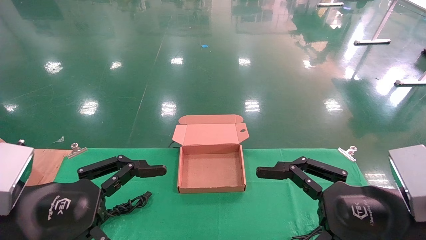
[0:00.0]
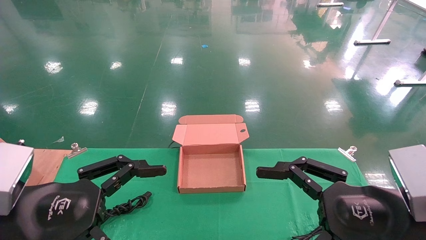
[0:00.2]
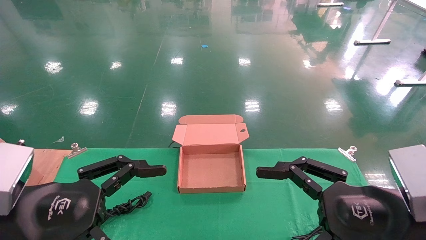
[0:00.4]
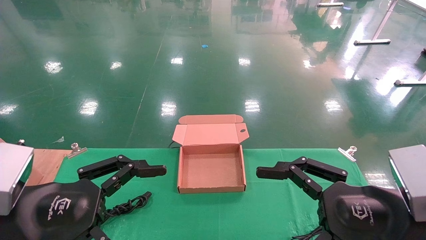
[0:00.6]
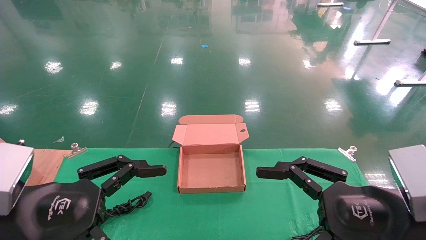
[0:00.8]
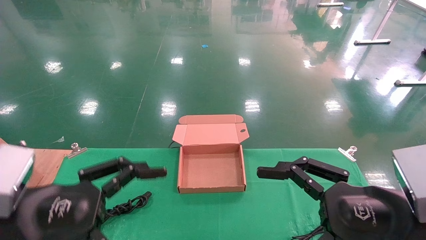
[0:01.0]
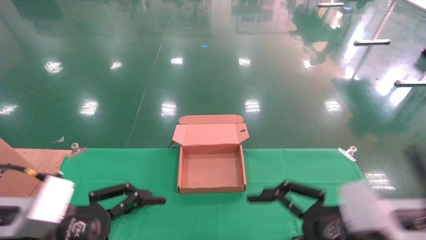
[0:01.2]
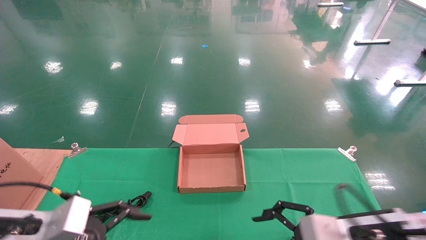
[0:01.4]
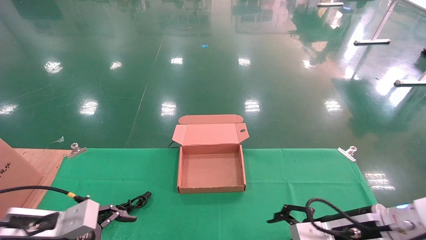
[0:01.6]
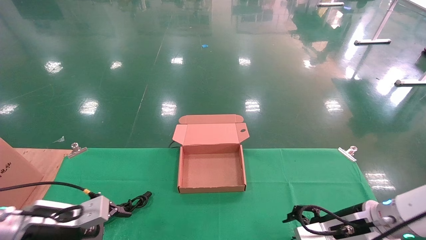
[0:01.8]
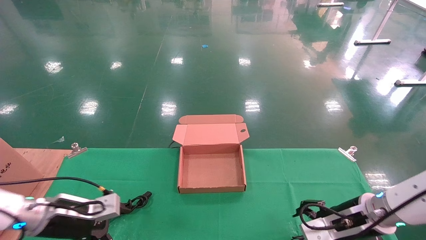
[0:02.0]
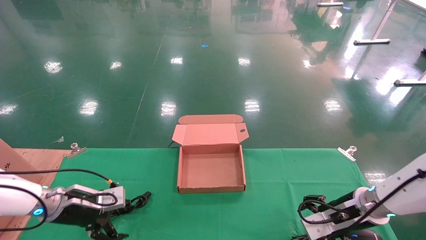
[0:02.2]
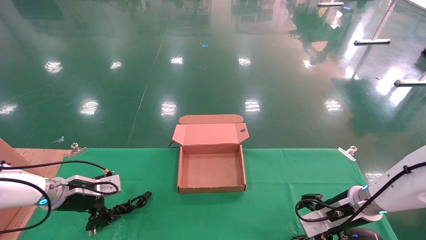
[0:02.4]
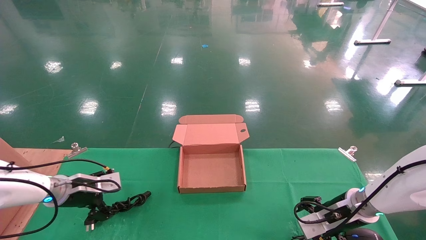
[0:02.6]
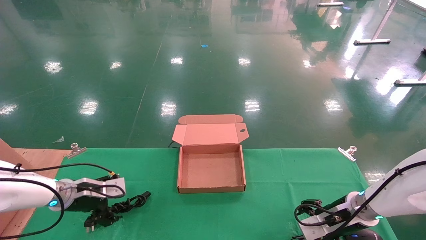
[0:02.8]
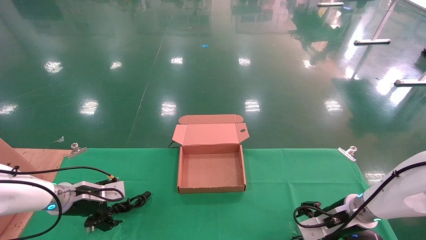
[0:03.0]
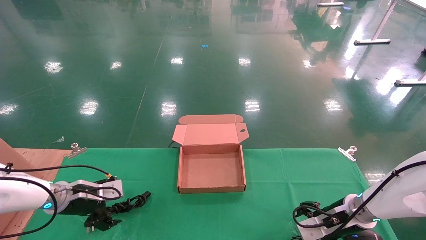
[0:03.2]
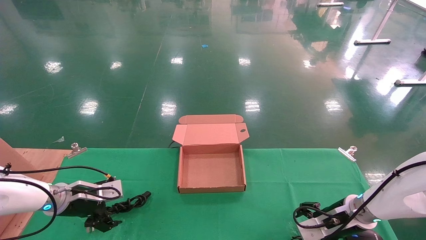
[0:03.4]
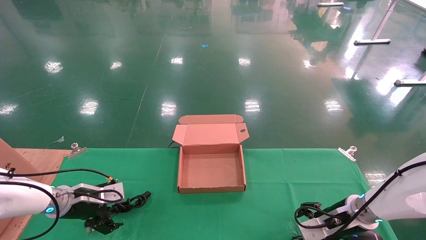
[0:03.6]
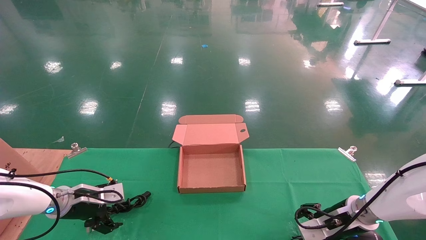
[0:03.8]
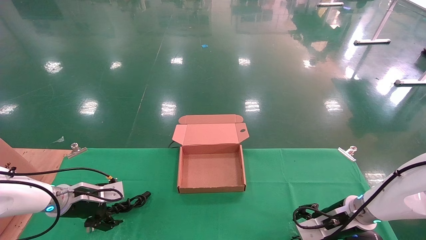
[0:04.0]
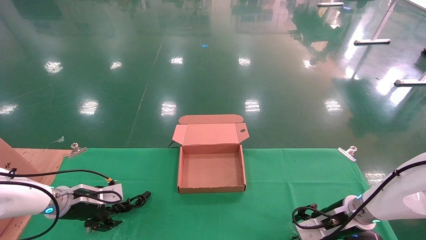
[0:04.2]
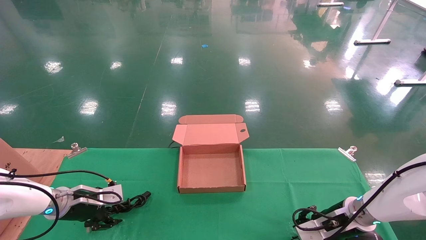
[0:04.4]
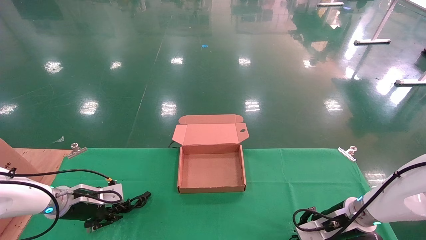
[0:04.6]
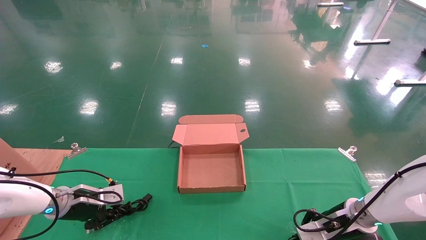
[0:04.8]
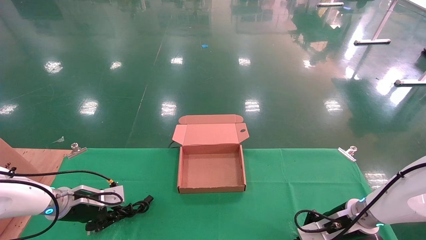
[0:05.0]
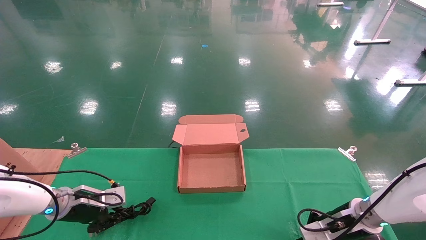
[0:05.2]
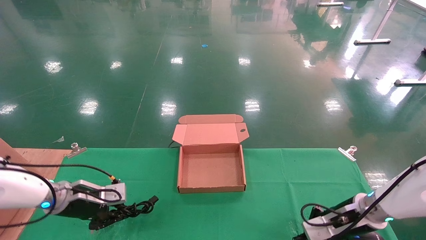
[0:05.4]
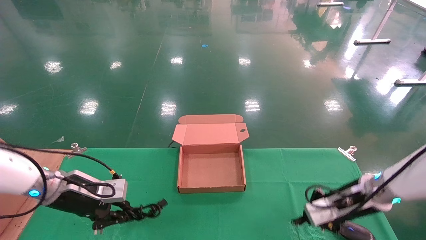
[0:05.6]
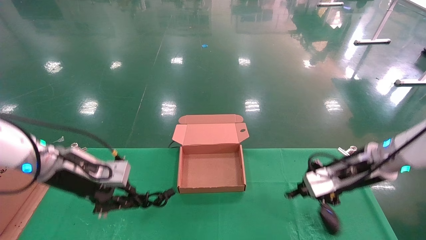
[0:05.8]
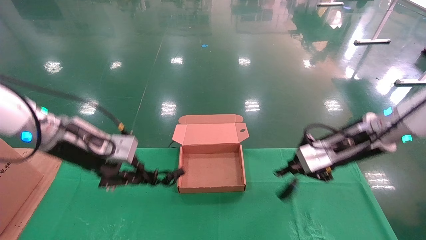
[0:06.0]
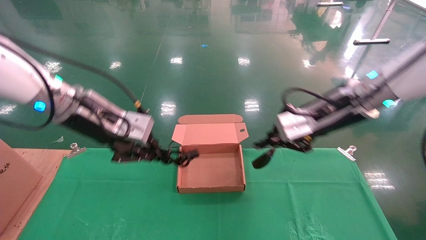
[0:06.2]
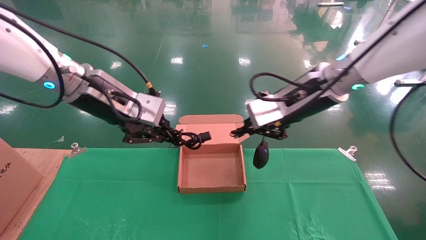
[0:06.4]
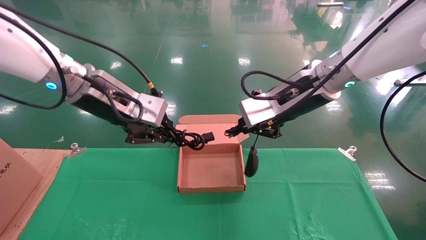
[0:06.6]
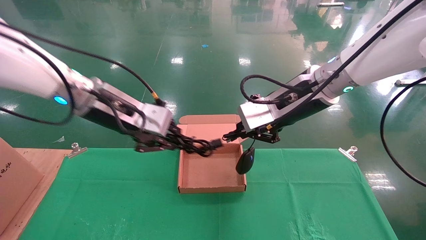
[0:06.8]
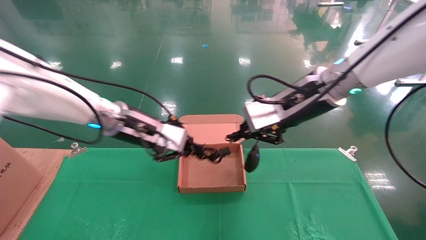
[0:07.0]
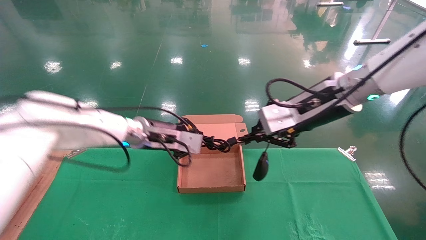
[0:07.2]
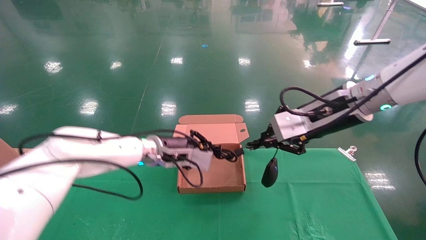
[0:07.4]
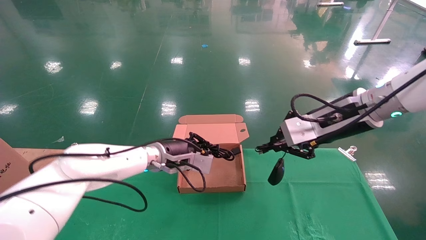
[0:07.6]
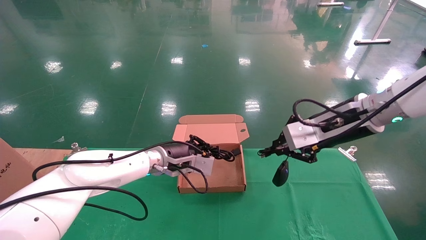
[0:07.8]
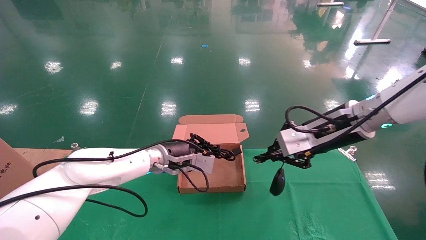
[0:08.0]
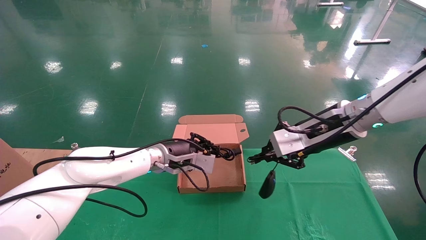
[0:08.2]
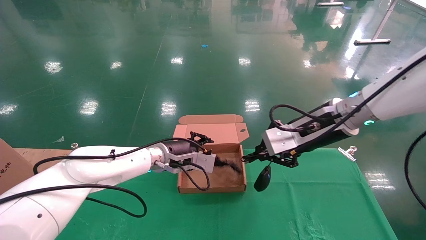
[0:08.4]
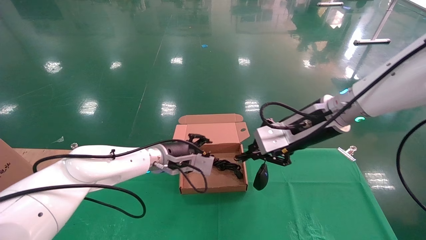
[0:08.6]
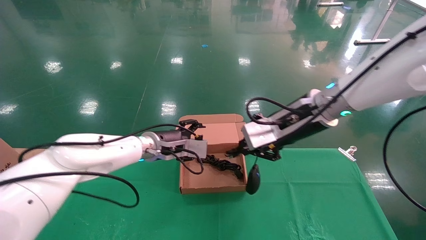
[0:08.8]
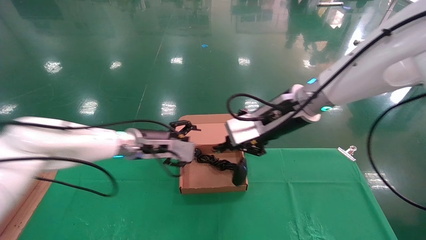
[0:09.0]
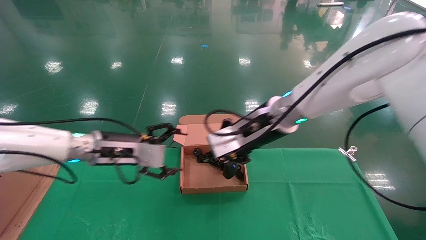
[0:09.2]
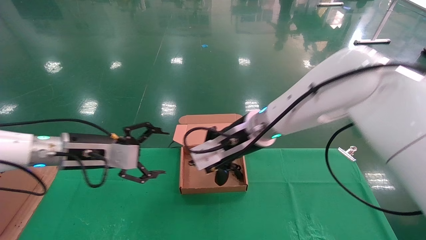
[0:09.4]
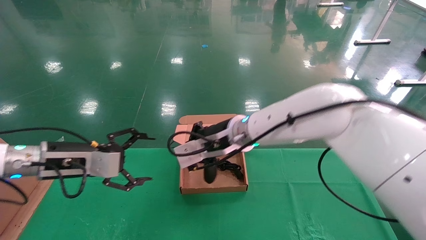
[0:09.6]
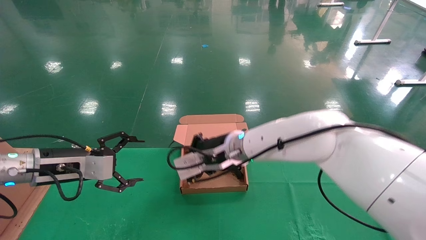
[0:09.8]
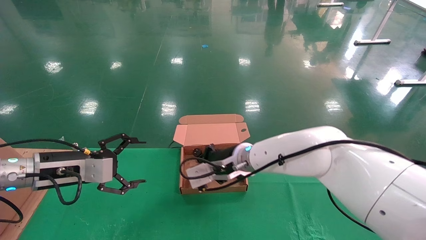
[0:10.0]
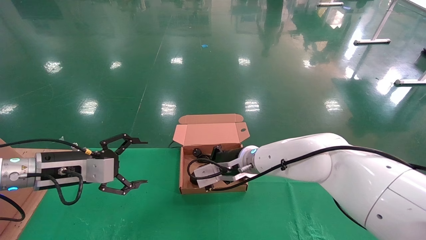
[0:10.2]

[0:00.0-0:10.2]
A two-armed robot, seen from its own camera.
Step, 0:01.4 to 0:05.6: Grab and lift both the mouse and power cord from the accessory packaging area at the same time.
0:00.0 to 0:01.4: The right gripper shifts roughly 10 cm forward and downward, while the left gripper goes about 10 cm downward and forward.
0:01.4 to 0:03.0: The left gripper heads forward, covering approximately 20 cm. Meanwhile the right gripper moves forward and downward, some 20 cm.
0:03.0 to 0:04.4: The right gripper closes, while the left gripper closes up.
0:04.4 to 0:05.8: The left gripper is displaced upward and to the right by some 15 cm, and closes its fingers; the right gripper goes some 15 cm upward, and closes its fingers.
0:05.8 to 0:07.2: The right gripper moves upward and to the left, approximately 15 cm, while the left gripper shifts about 15 cm to the right and forward.
0:07.2 to 0:08.8: The left gripper opens its fingers.
0:08.8 to 0:10.2: The left gripper moves to the left and backward, approximately 20 cm, and opens its fingers. The right gripper goes about 20 cm downward, to the left and forward.

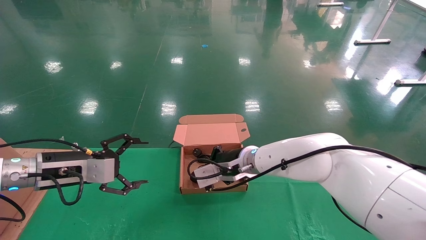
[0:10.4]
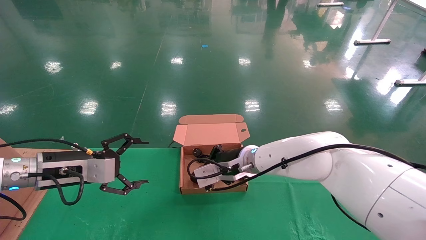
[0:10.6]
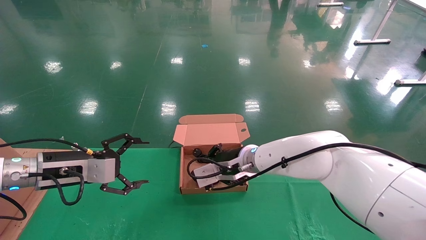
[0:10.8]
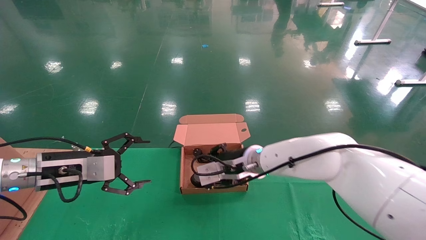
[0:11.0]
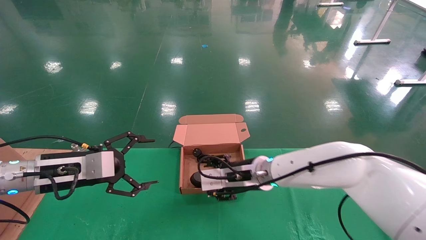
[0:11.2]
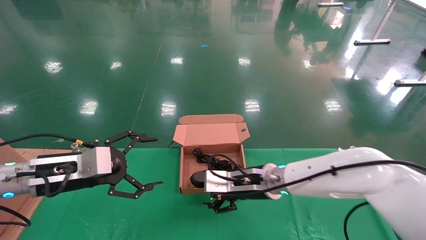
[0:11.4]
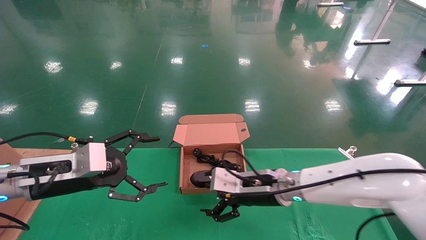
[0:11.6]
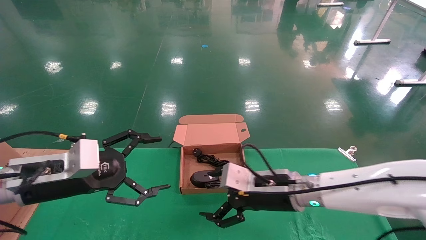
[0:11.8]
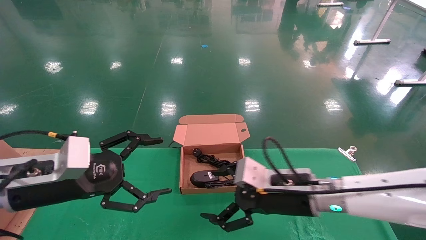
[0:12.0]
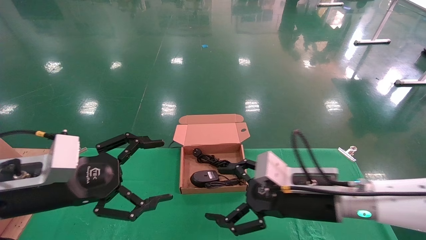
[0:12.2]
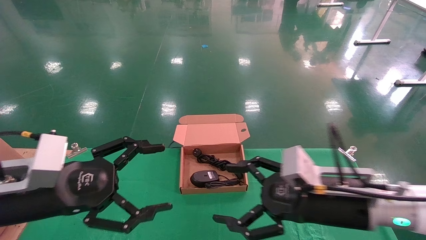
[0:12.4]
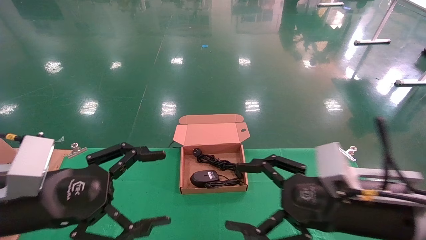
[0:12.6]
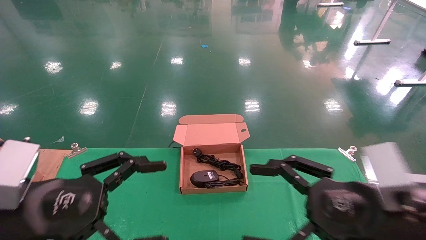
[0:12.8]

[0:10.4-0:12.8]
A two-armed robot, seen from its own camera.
0:10.4 to 0:11.6: The right gripper goes roughly 10 cm backward and to the right, and opens, while the left gripper goes about 5 cm backward.
0:11.6 to 0:12.8: The right gripper goes some 20 cm backward and to the right, while the left gripper heads backward, covering some 10 cm.
